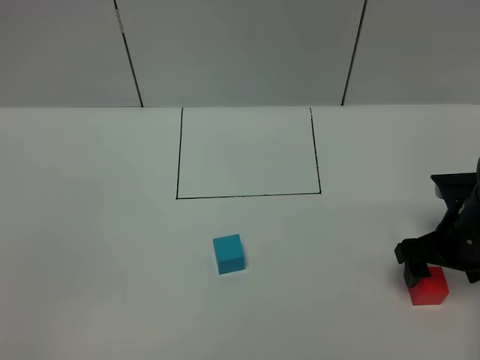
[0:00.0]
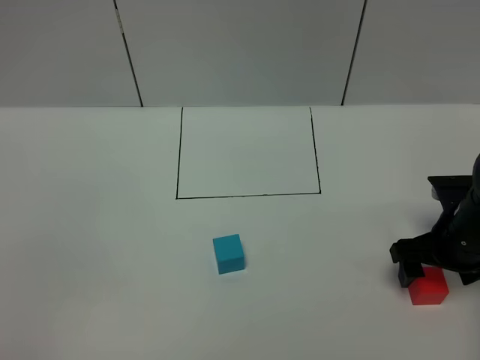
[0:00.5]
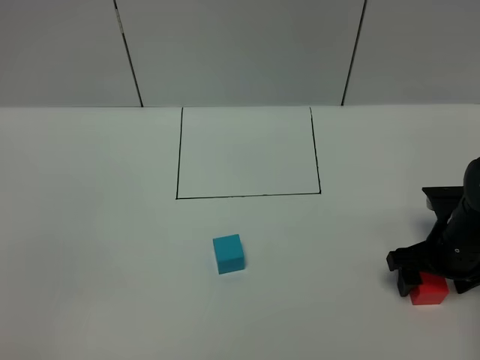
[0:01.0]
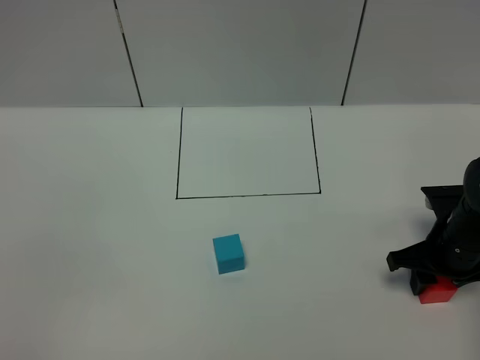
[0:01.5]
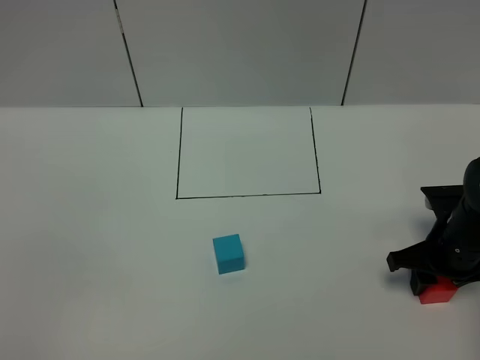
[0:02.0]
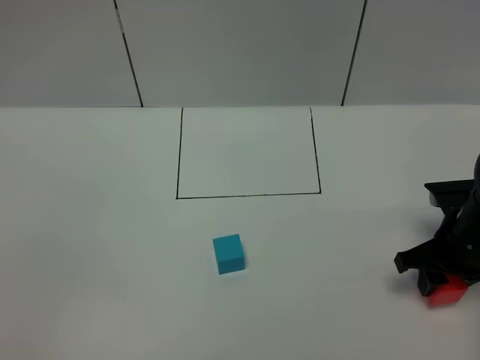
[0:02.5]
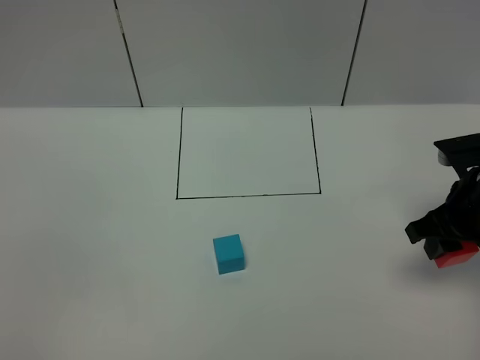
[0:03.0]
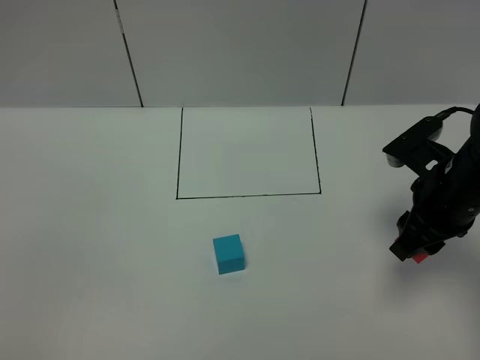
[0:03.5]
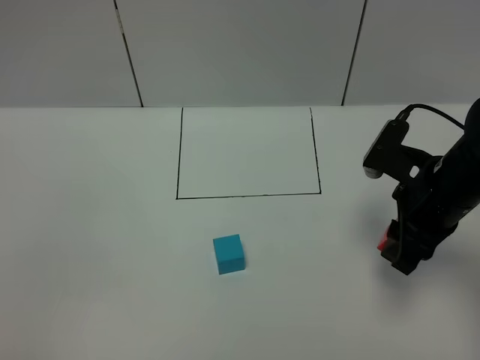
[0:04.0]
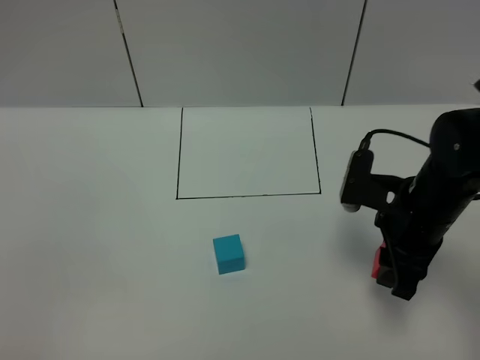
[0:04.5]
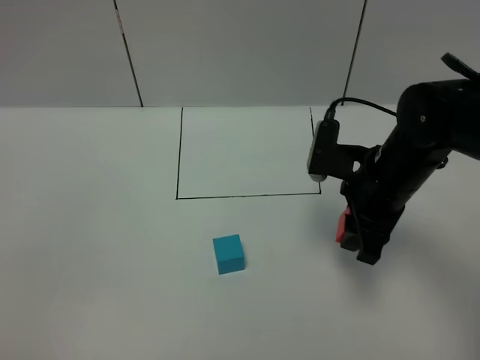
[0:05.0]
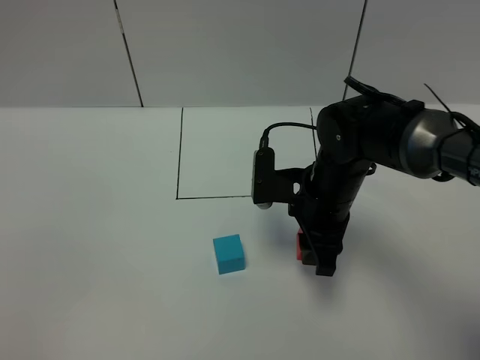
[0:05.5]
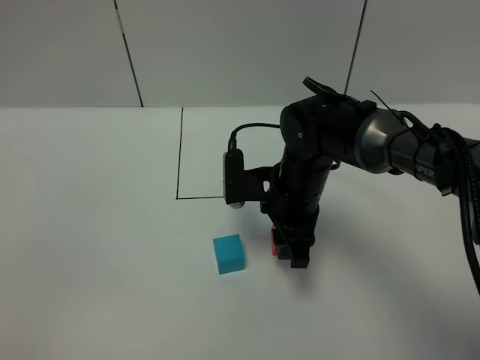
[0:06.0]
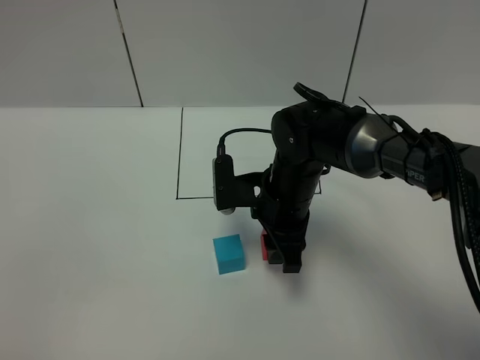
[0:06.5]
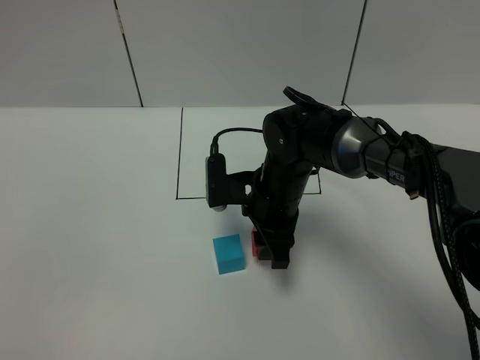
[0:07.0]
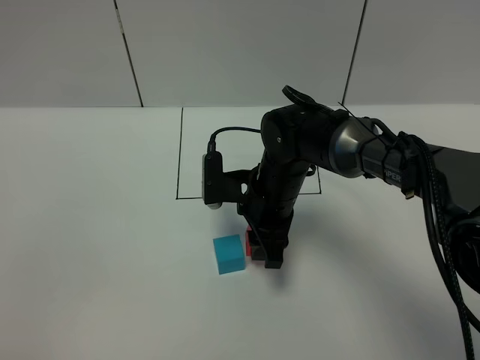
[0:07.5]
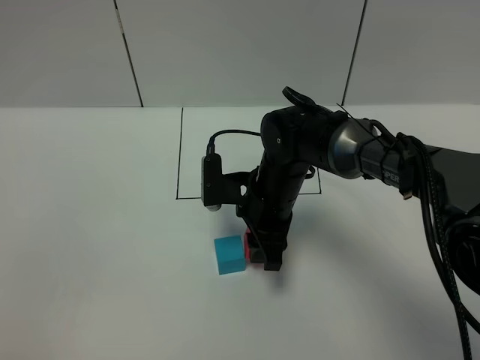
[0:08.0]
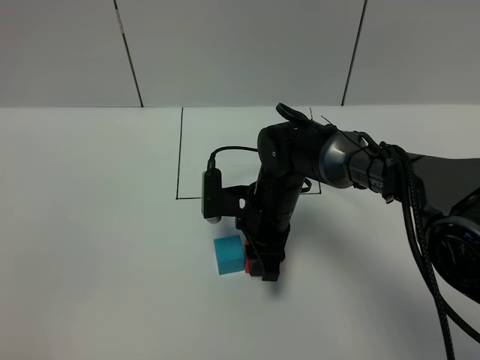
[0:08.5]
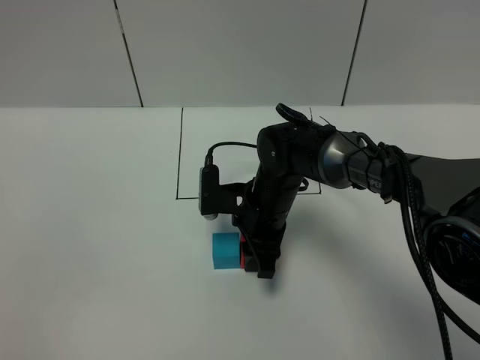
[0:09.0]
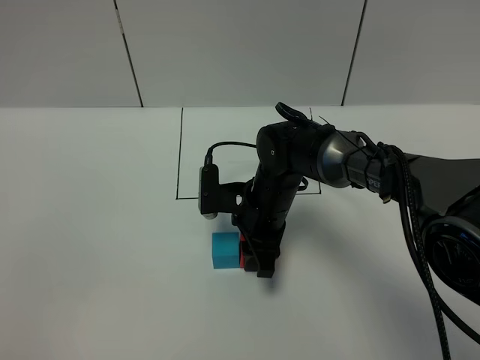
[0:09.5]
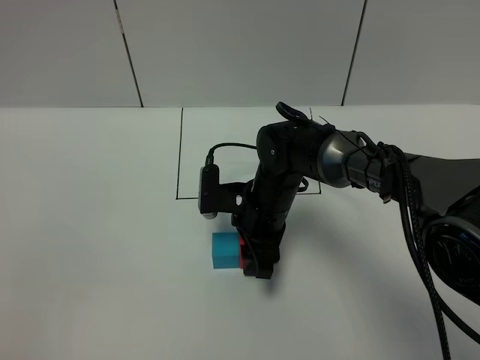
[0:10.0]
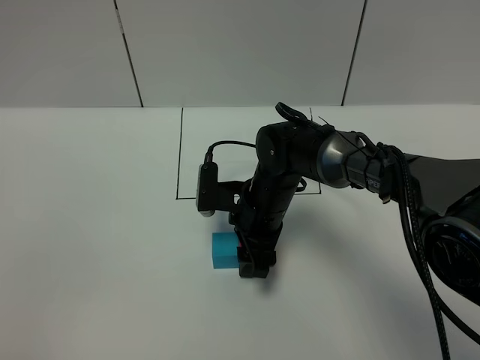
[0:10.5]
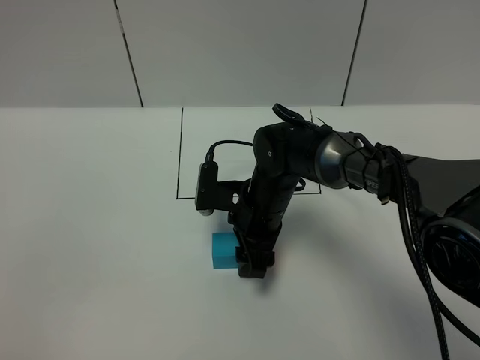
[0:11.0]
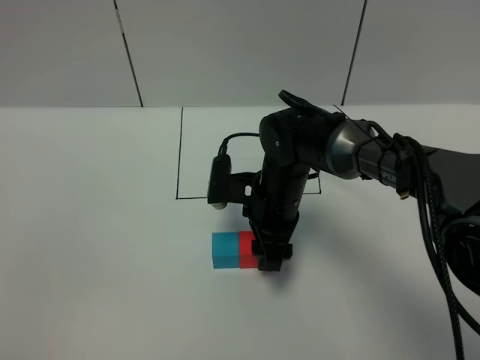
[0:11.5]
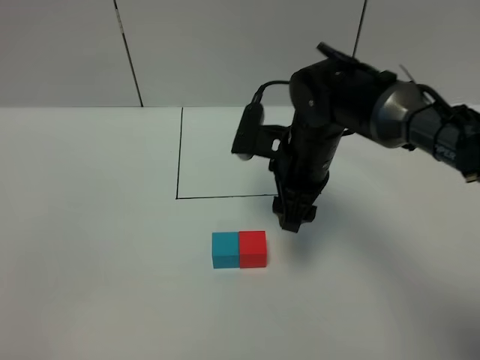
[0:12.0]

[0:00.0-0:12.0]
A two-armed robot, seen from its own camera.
Task of the whole recording: According to the building block template in front, assemble the scattered blocks together.
Step, 0.0 to 11.5 s: Put the red cube on the right of the blue cube.
0.0 to 2.0 s: The right gripper closes its fingers.
2.0 to 4.0 s: The right gripper moves upward and to the left, roughly 10 cm.
4.0 to 6.0 s: The right gripper heads to the left, covering some 15 cm.
6.0 to 8.0 s: The grippers make only small movements.
8.0 to 10.0 s: The grippers stay close to where they were, moving slightly.
10.0 to 12.0 s: The right gripper is displaced upward and to the right by some 10 cm.

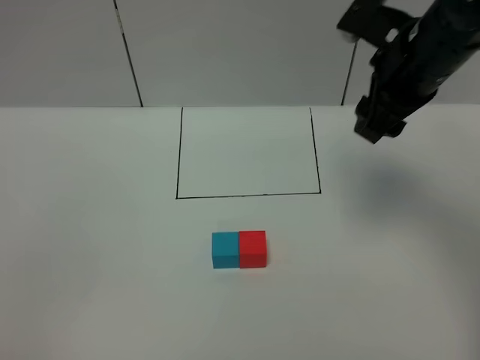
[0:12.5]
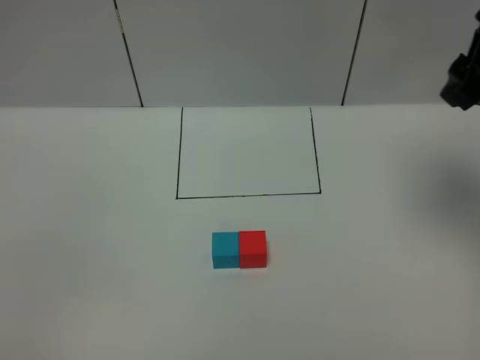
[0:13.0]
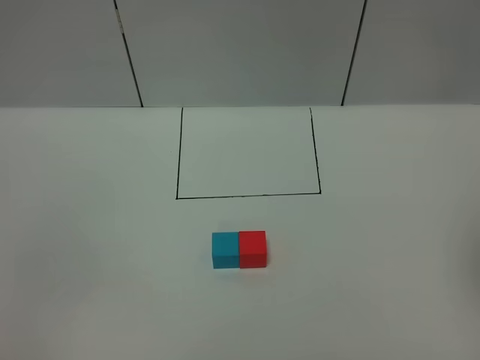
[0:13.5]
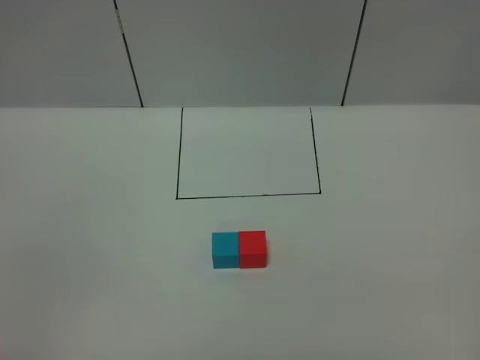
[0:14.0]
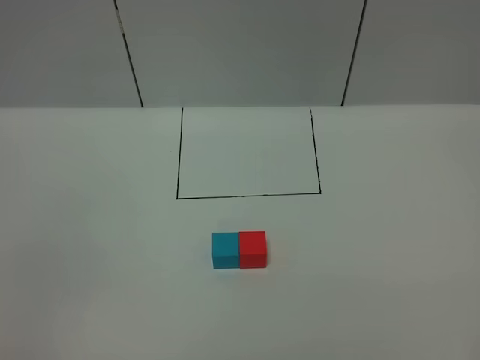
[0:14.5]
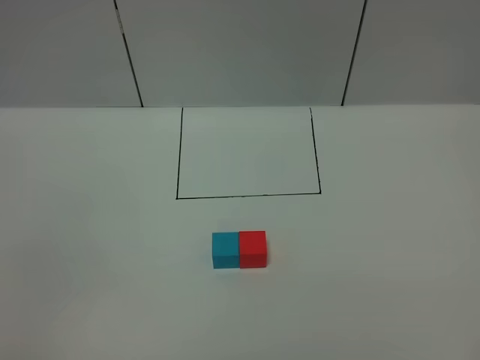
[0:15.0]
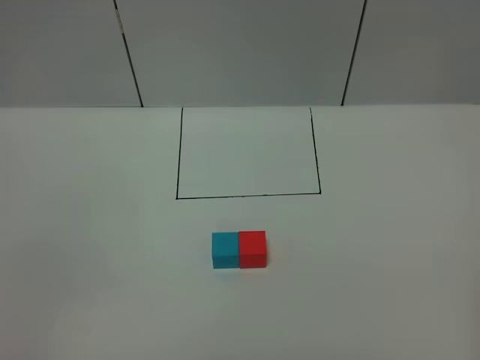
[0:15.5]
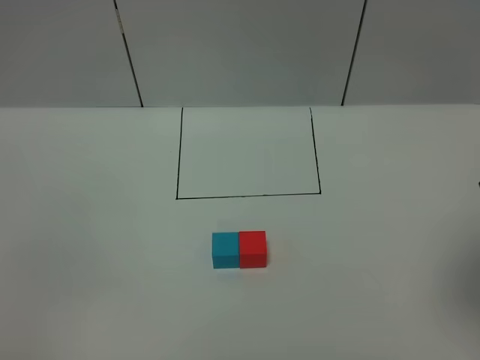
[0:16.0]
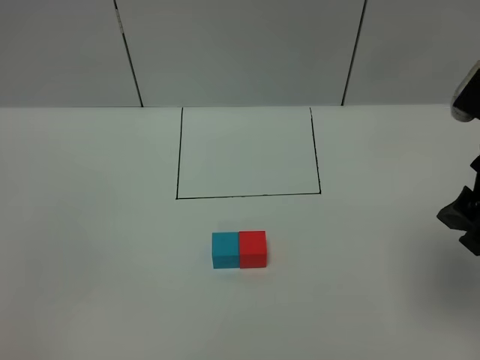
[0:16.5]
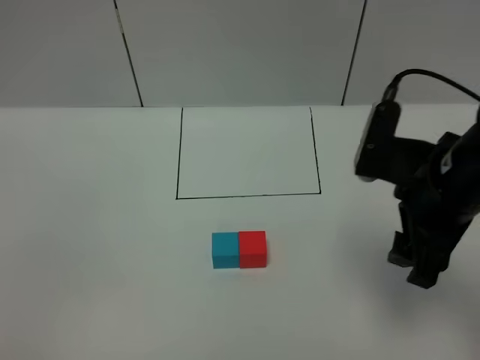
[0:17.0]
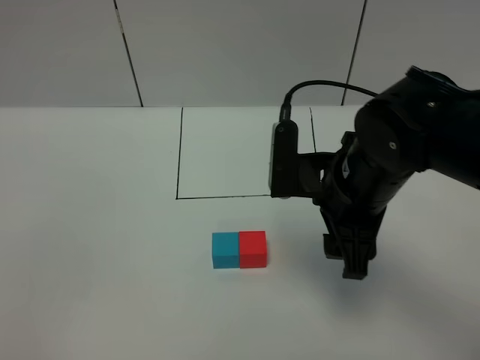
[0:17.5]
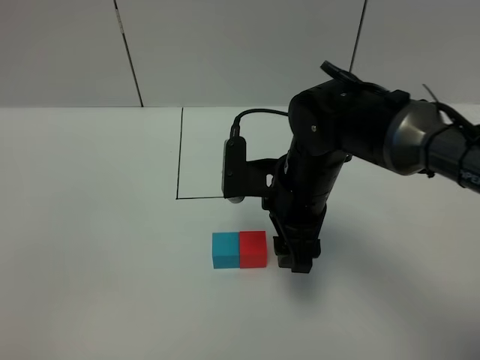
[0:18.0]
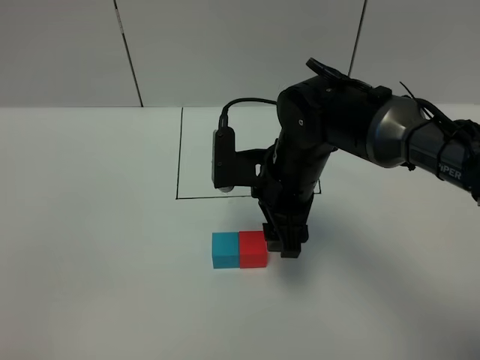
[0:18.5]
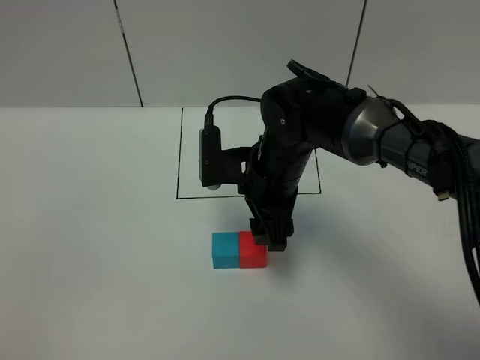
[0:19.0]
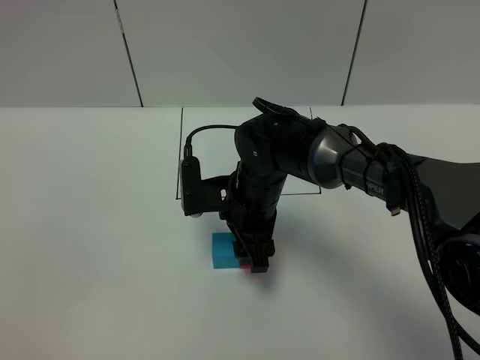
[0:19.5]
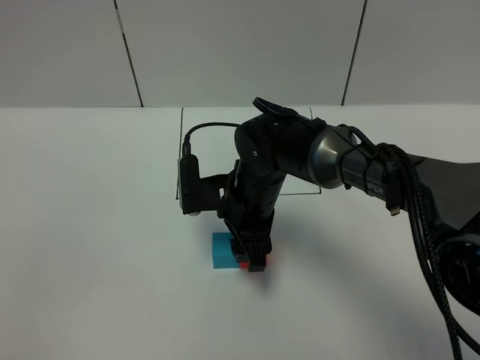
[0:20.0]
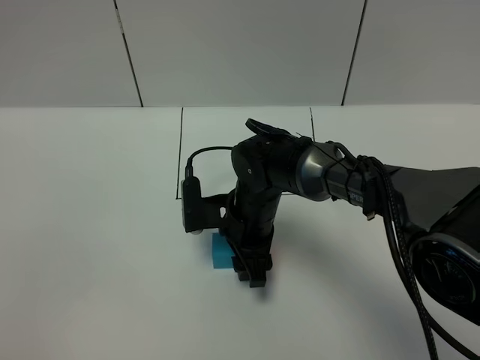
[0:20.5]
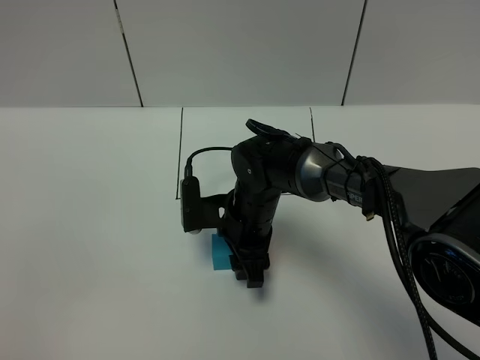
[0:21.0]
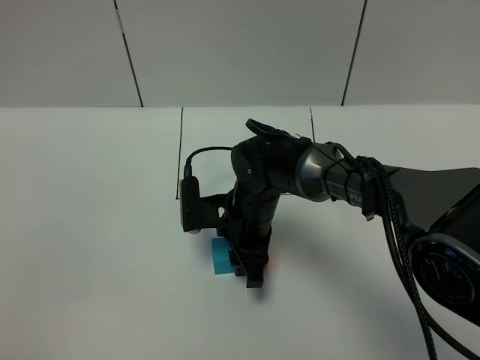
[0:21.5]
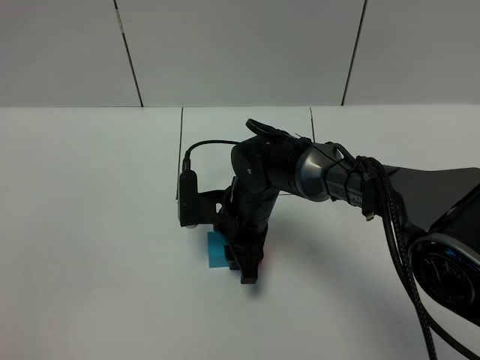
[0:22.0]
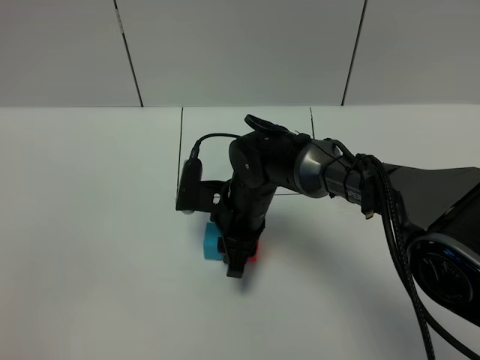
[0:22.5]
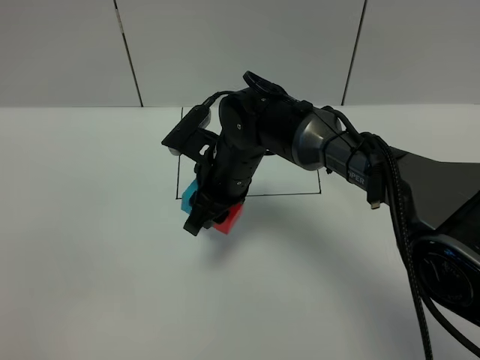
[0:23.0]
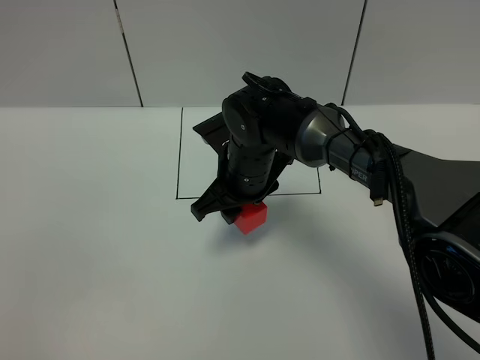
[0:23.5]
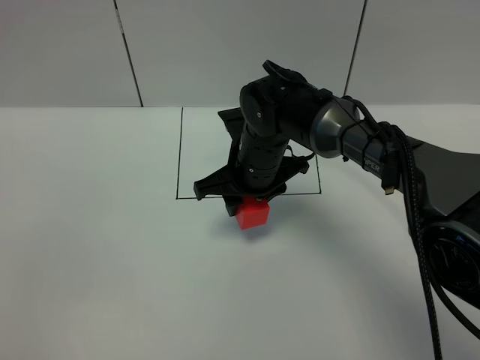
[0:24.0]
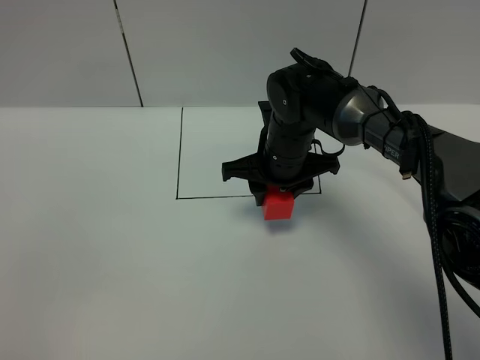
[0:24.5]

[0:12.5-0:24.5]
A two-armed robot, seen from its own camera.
Task of the whole recording: According to the building block template in front, assemble the scattered blocks together.
12.5 to 14.5 s: The right gripper is displaced backward and to the right by roughly 35 cm.
14.5 to 16.5 s: The right gripper is displaced forward, to the left and downward by some 20 cm.
16.5 to 18.5 s: The right gripper travels to the left, downward and forward by some 25 cm.
18.5 to 20.5 s: The right gripper moves downward, some 10 cm.
20.5 to 22.5 s: The right gripper closes up.
22.5 to 24.5 s: The right gripper moves forward, about 5 cm.

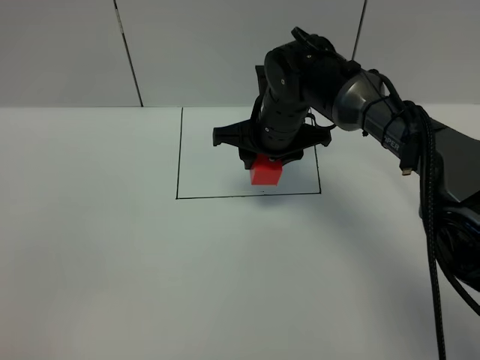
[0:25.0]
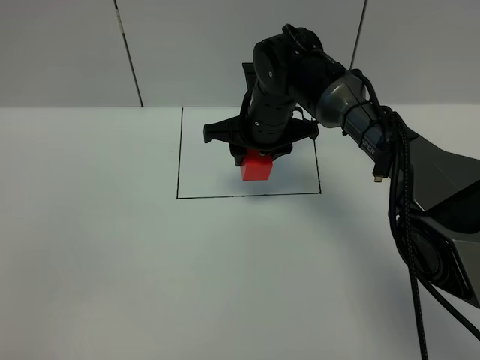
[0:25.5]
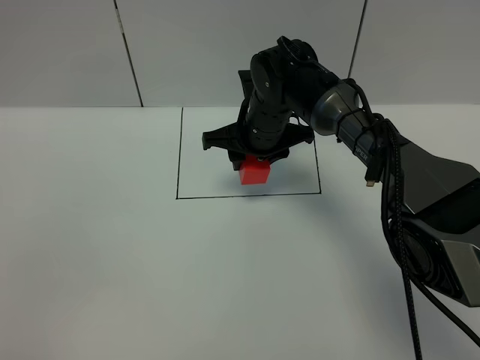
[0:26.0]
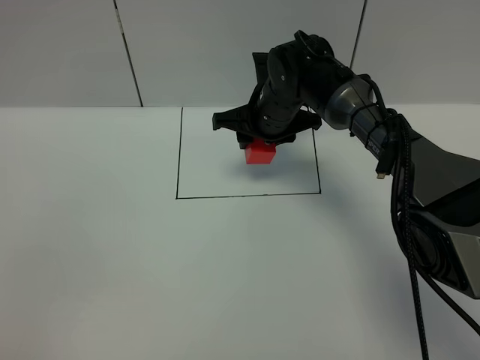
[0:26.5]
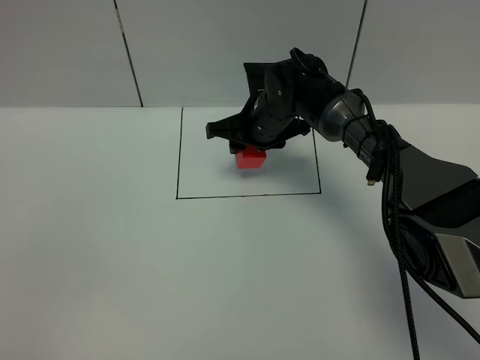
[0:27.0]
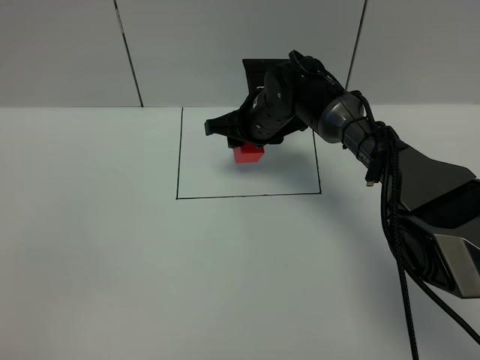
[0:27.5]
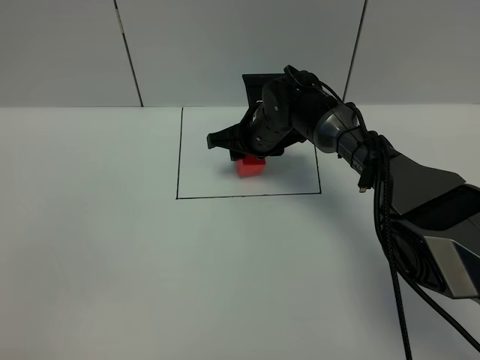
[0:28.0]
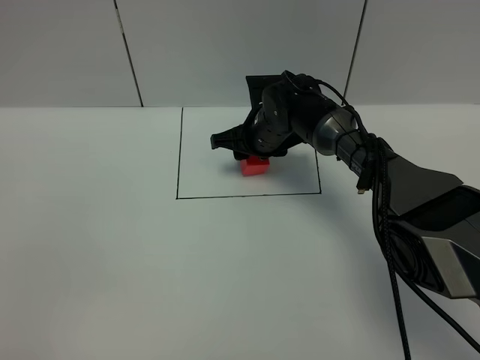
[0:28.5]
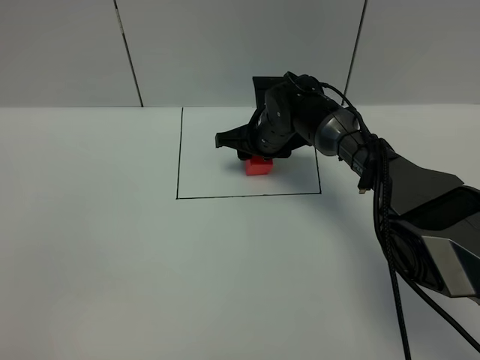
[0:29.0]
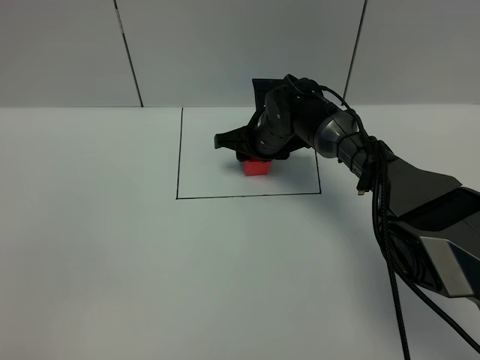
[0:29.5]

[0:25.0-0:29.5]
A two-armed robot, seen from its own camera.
Task of the whole recording: According to the building block template in front, assemble the scattered blocks together.
25.0 to 27.0 s: The right gripper goes about 5 cm forward.
27.0 to 29.5 s: The grippers make only small movements.
